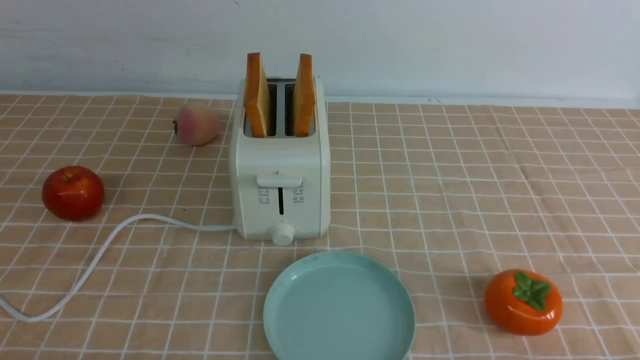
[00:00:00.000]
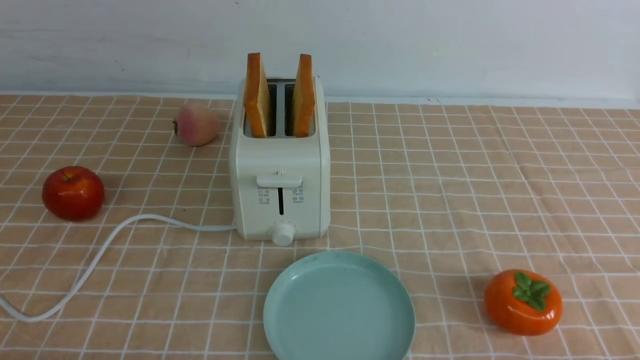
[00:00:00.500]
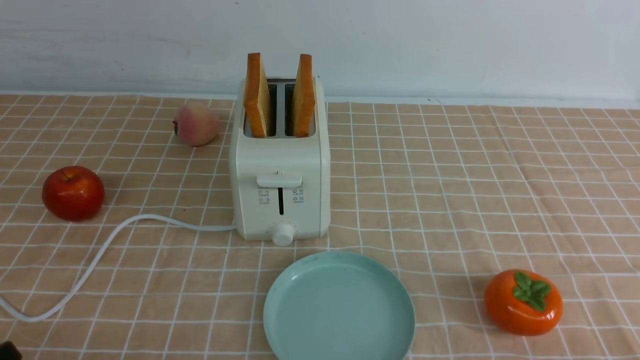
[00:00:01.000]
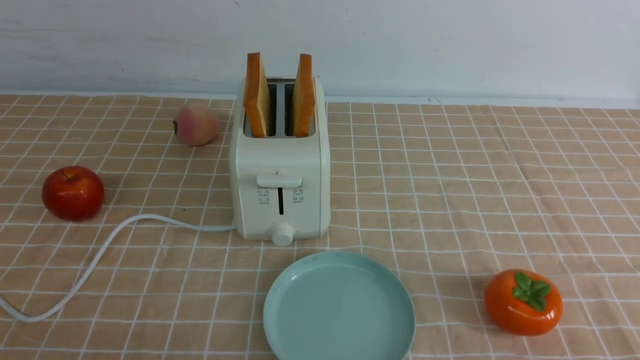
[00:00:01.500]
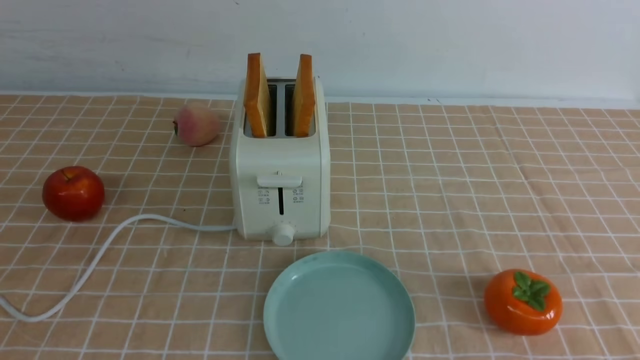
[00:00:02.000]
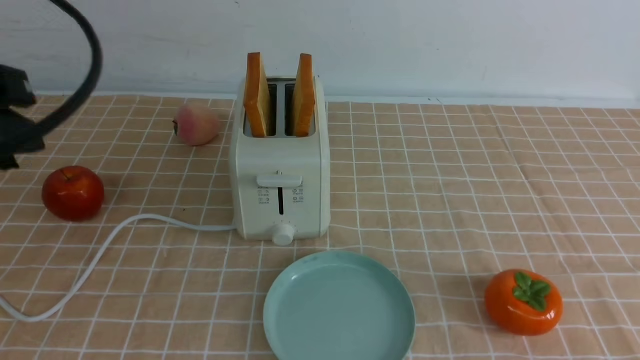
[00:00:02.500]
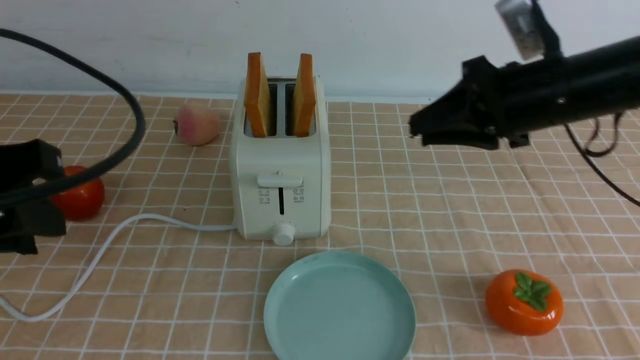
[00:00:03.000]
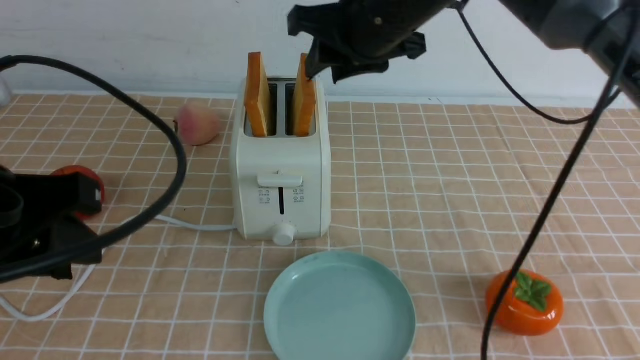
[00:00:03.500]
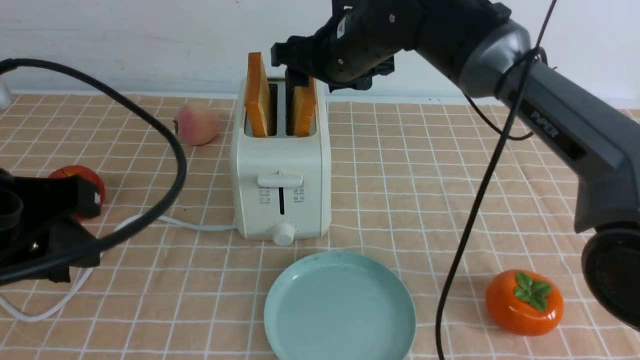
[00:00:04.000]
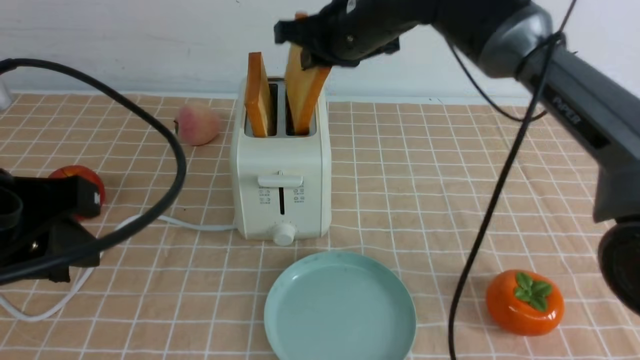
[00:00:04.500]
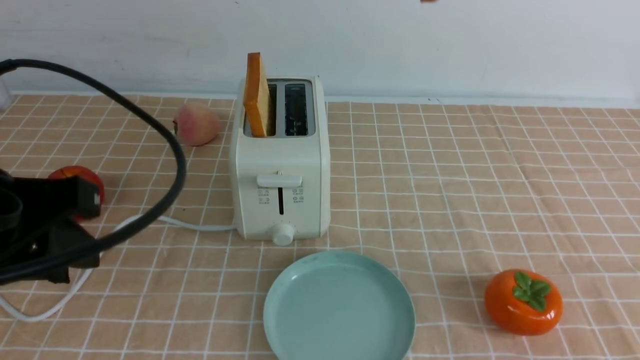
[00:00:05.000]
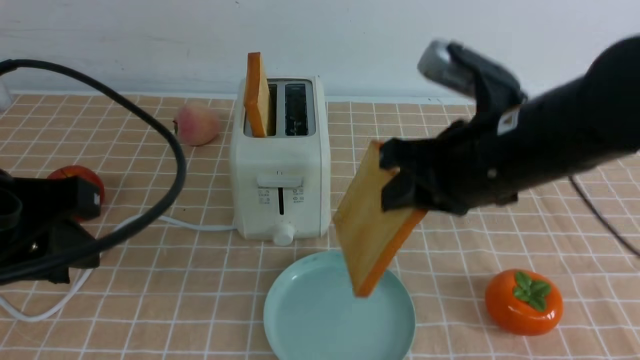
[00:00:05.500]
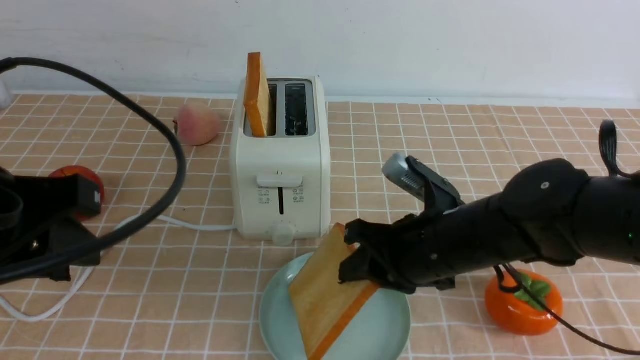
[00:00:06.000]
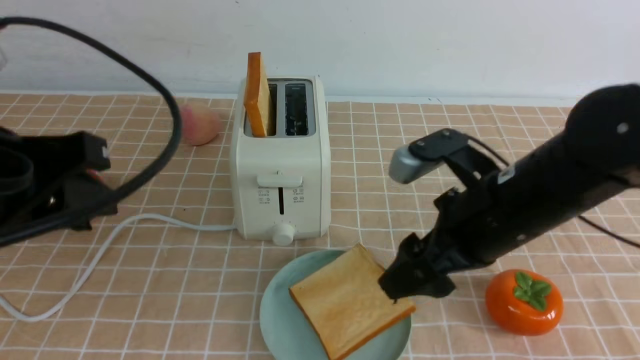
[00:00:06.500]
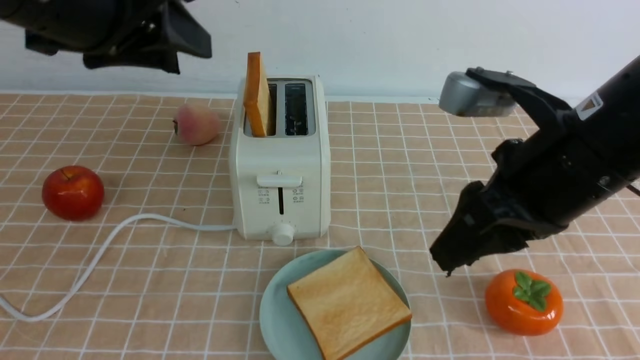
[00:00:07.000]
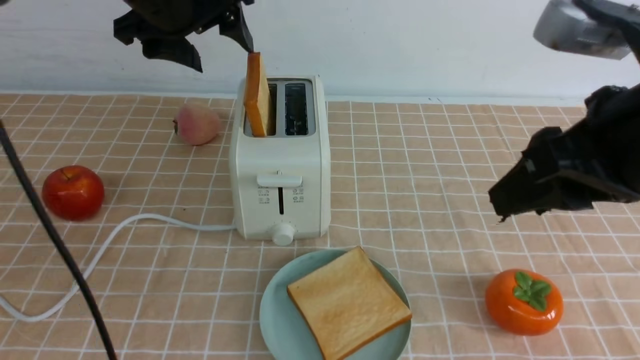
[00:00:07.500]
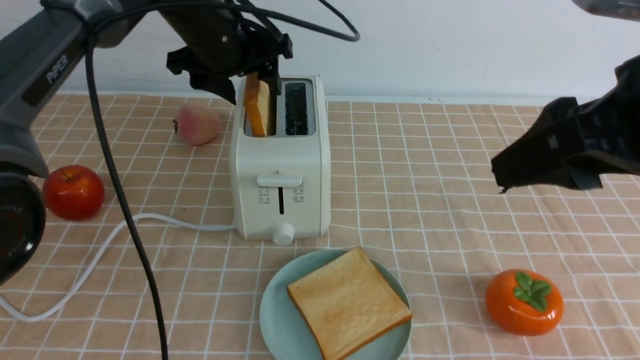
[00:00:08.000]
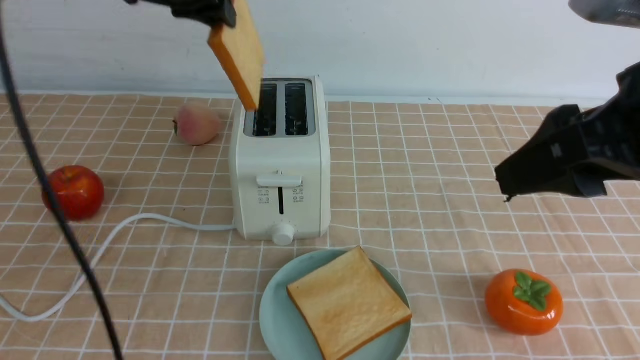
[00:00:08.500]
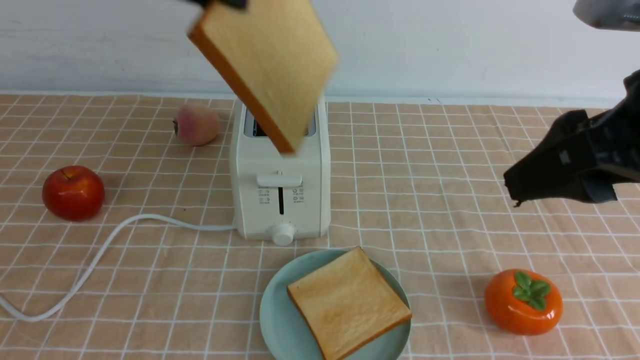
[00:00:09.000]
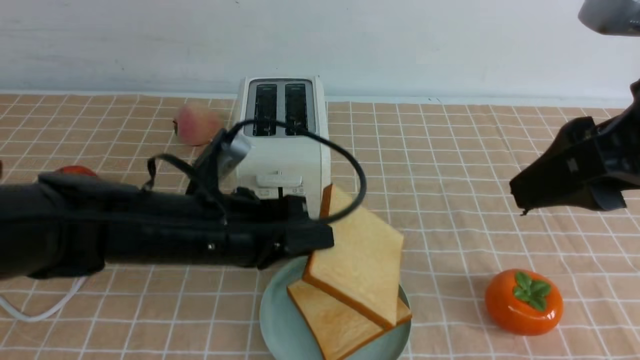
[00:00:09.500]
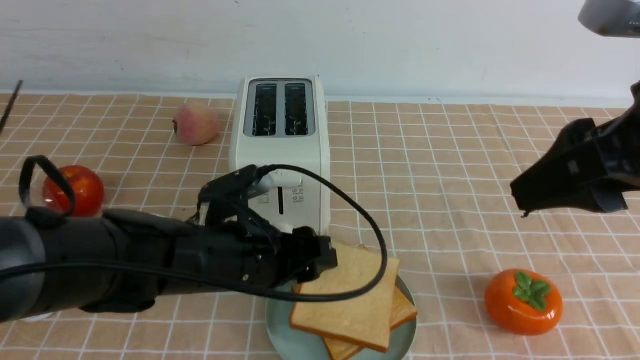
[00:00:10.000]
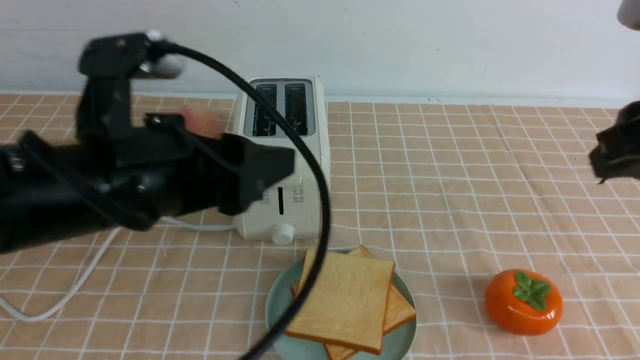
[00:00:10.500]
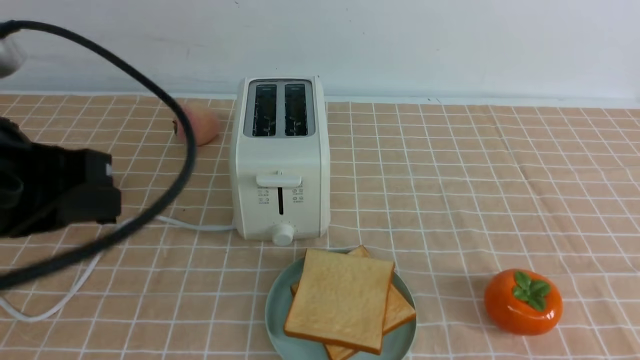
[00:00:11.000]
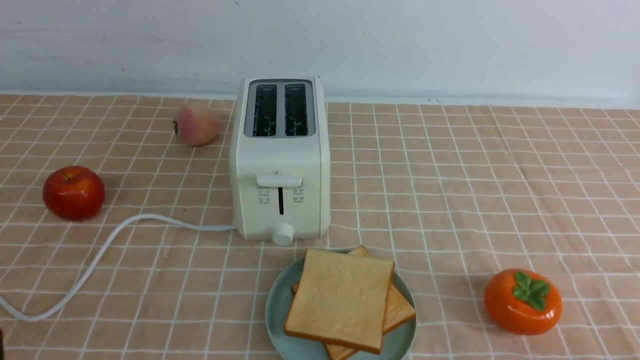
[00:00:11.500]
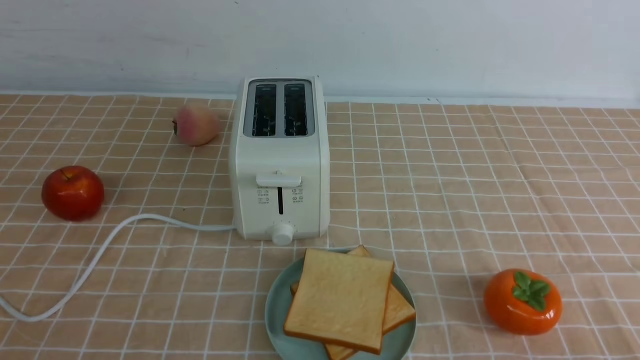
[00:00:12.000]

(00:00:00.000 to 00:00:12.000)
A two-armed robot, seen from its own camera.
Task of the whole recording: take toasted bread from bread machine on light coffee tablecloth place on plate.
Step, 00:00:00.000 - 00:00:04.000: use the right arm to take out a slice of bread.
Step, 00:00:05.000 - 00:00:06.500: use the right arm to put a slice of bread into the plate.
Step, 00:00:07.000 - 00:00:08.000: use the left arm to take out a slice of bread.
Step, 00:00:08.500 - 00:00:10.000: use the left arm to put a slice of bread into the empty plate.
00:00:02.000 - 00:00:04.000: The right gripper heads forward and to the left, covering roughly 50 cm, and opens. Meanwhile the left gripper moves forward, approximately 10 cm.
00:00:04.000 - 00:00:06.000: The right gripper is displaced backward, downward and to the right by about 20 cm, and closes up.
00:00:06.000 - 00:00:08.000: The left gripper moves forward, some 30 cm, and opens its fingers, while the right gripper moves upward, to the right and backward, approximately 20 cm, and opens its fingers.
00:00:08.000 - 00:00:10.000: The left gripper is displaced backward and downward by approximately 25 cm, and closes its fingers.
00:00:10.000 - 00:00:12.000: The left gripper is displaced backward, to the left and upward by roughly 30 cm, and closes its fingers; the right gripper is displaced downward, backward and to the right by roughly 25 cm, and closes up.
